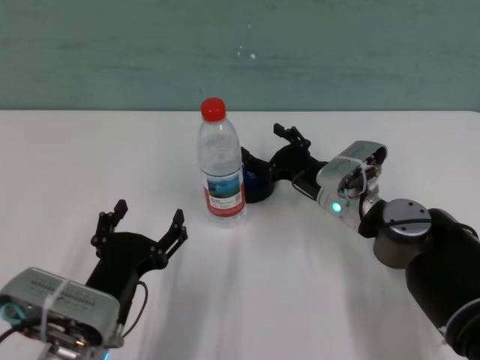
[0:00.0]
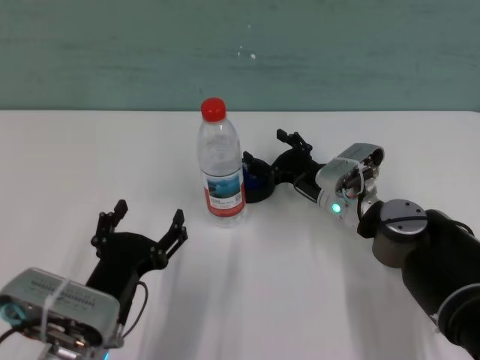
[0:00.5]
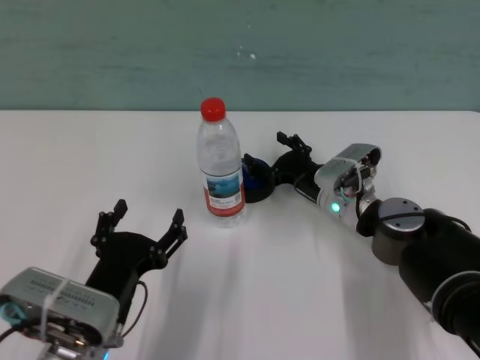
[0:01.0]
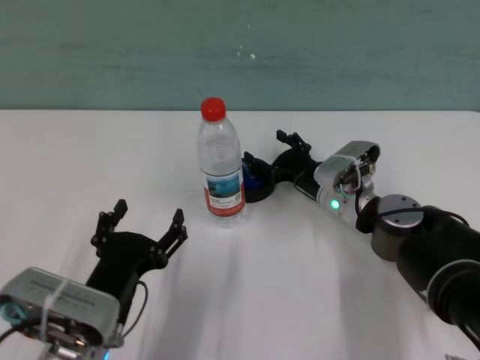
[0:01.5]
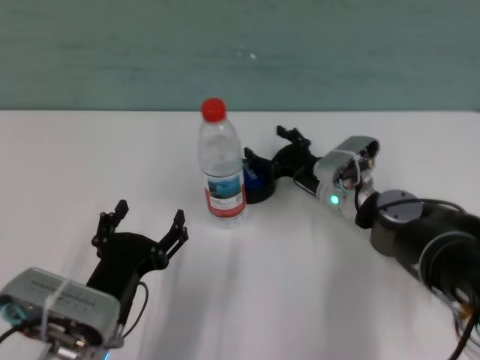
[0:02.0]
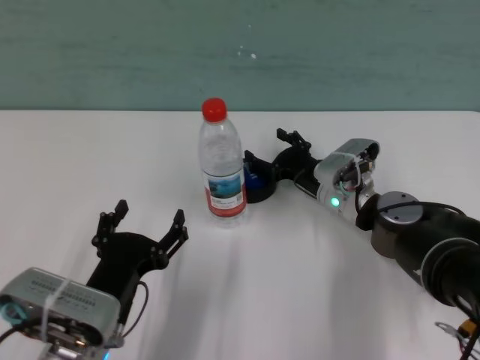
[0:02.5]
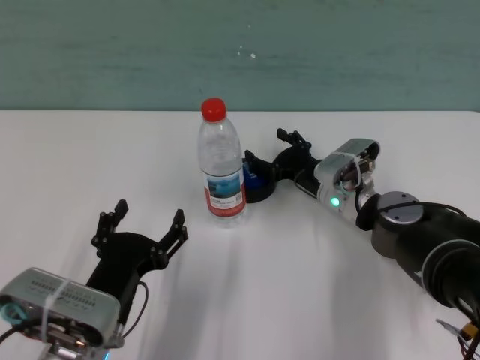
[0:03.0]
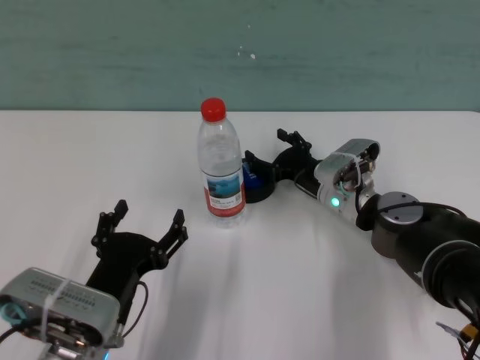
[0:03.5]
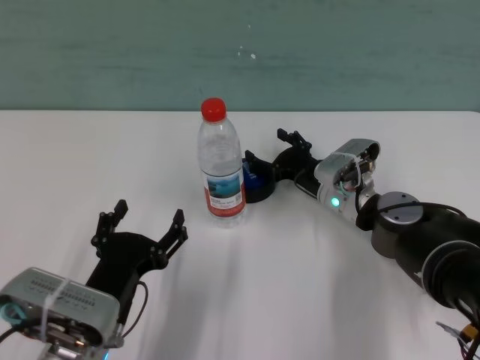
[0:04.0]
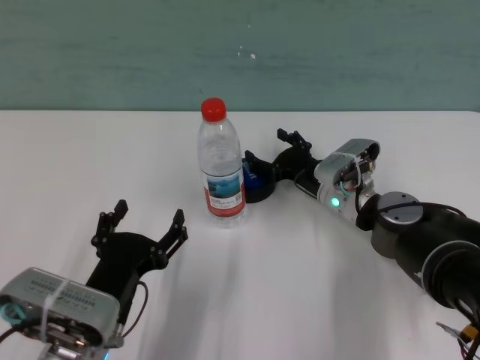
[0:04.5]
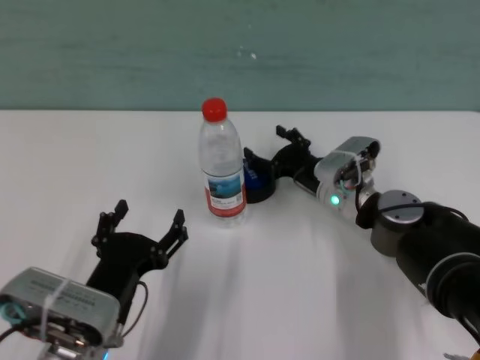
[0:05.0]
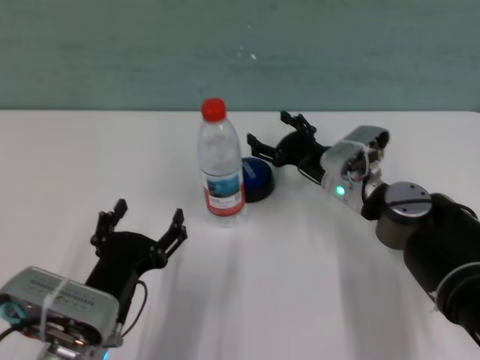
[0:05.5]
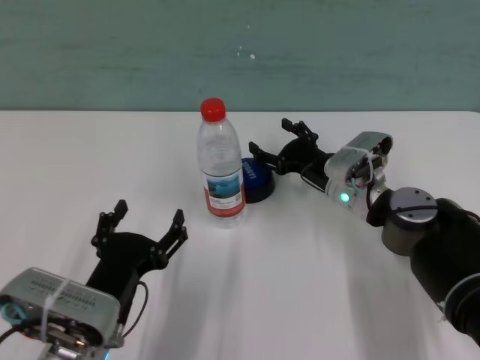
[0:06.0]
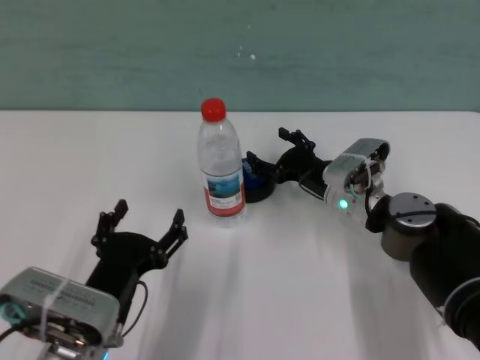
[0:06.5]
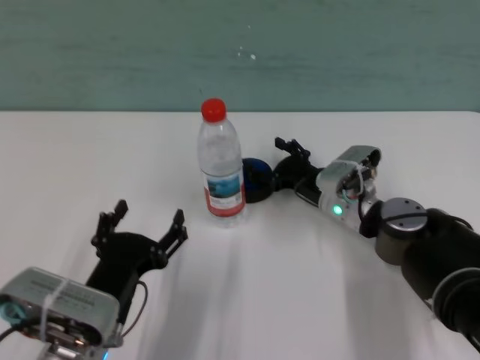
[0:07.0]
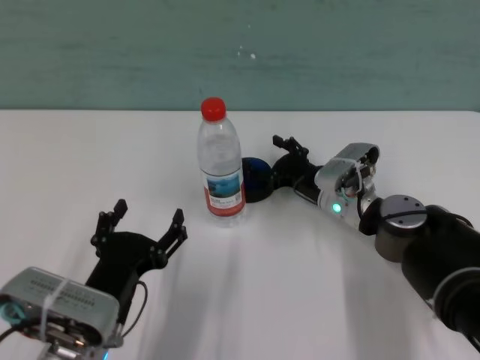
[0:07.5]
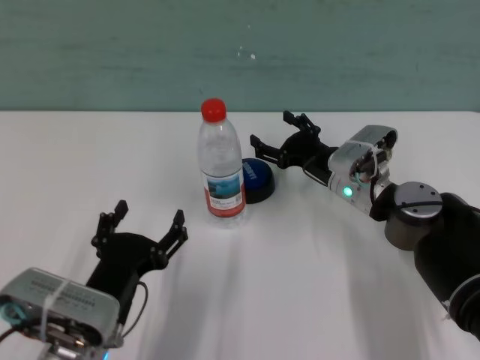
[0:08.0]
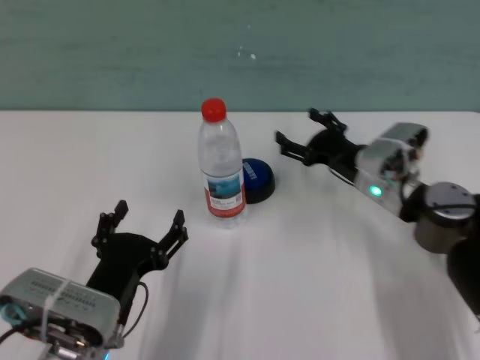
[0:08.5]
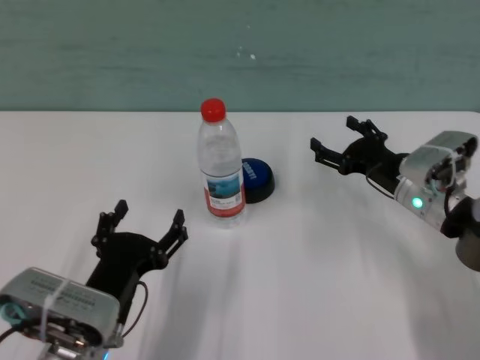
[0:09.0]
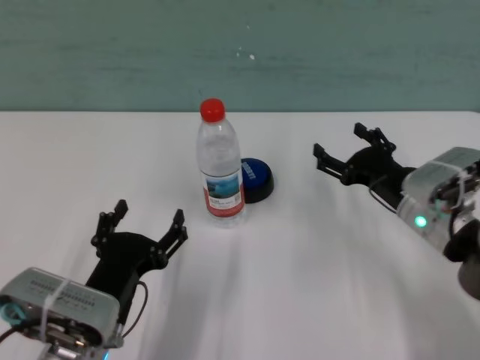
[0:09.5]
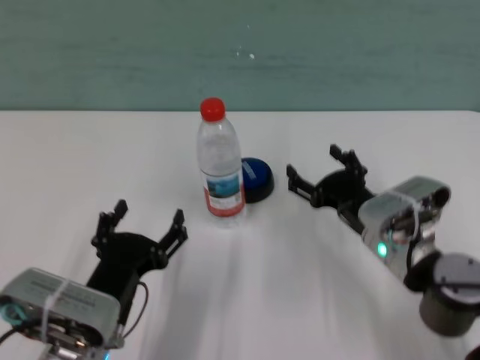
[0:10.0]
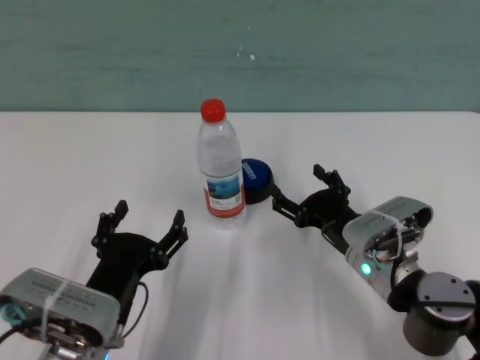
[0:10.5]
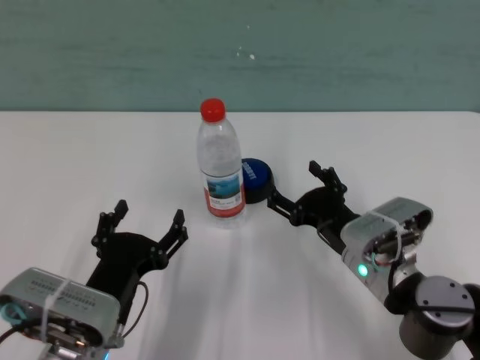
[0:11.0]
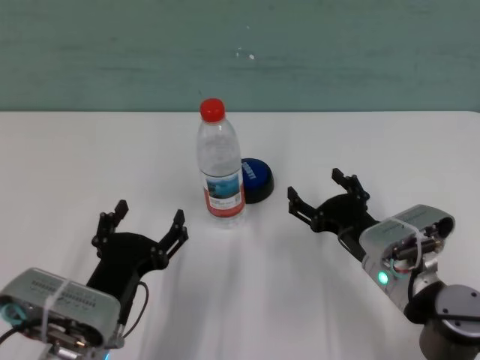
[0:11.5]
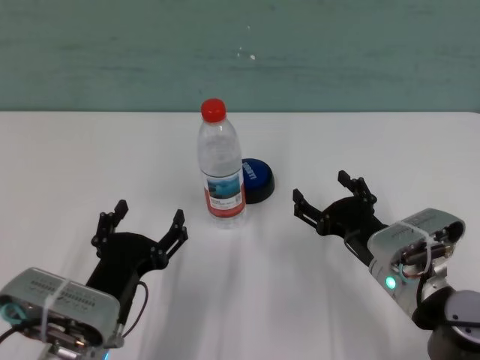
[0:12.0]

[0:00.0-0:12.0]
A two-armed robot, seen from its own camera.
Task of the whole recording: after avoiding the water bottle on the table, press the button.
Step, 0:00.0 to 0:05.0: Press the button blocked by the bottle with right gripper.
